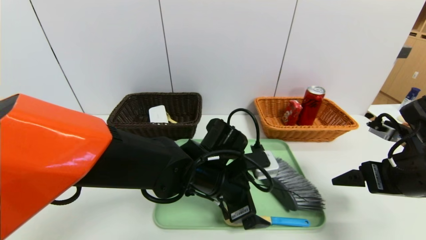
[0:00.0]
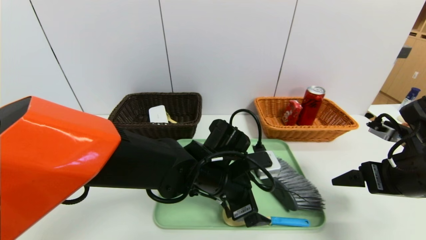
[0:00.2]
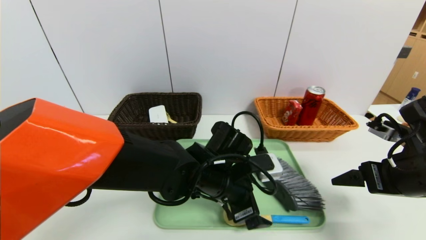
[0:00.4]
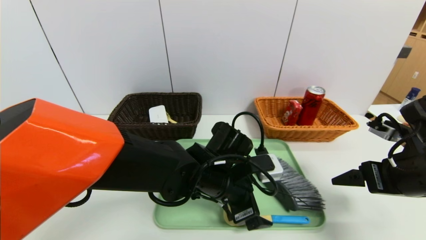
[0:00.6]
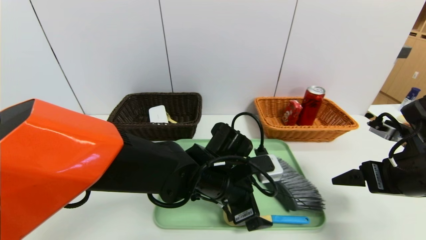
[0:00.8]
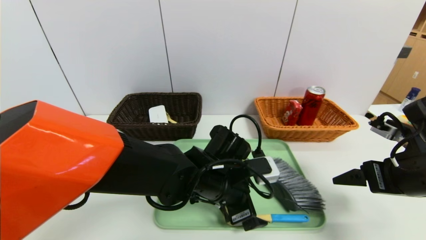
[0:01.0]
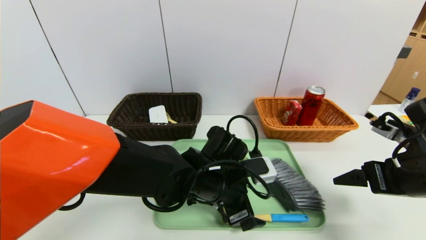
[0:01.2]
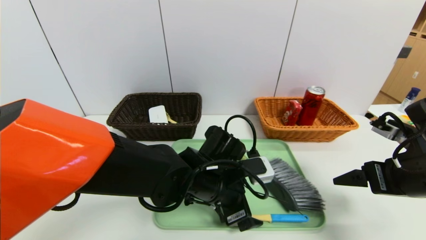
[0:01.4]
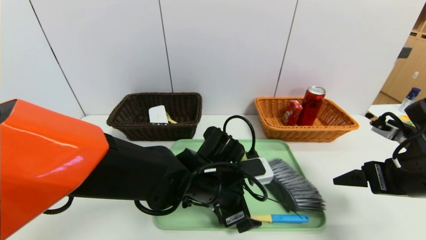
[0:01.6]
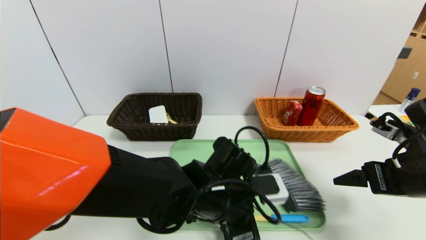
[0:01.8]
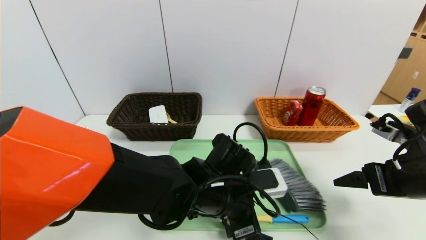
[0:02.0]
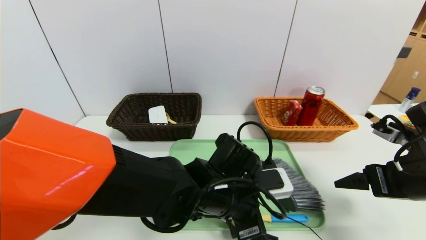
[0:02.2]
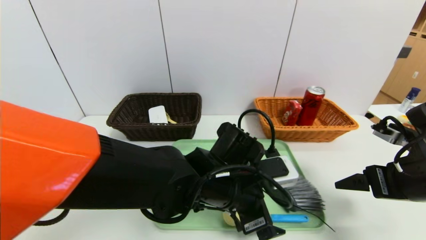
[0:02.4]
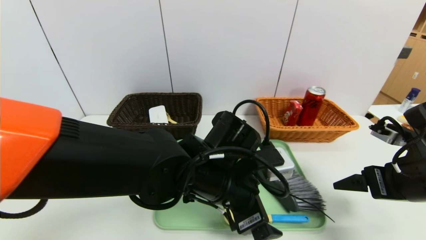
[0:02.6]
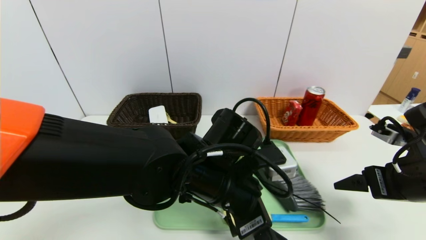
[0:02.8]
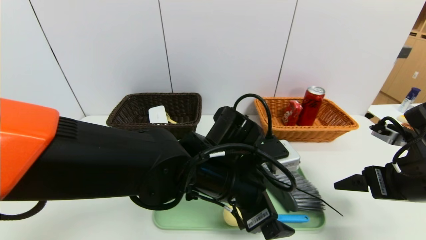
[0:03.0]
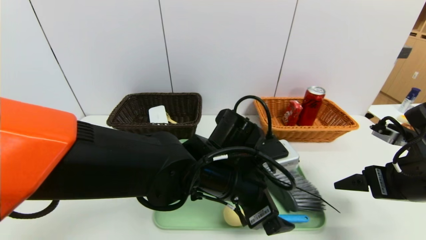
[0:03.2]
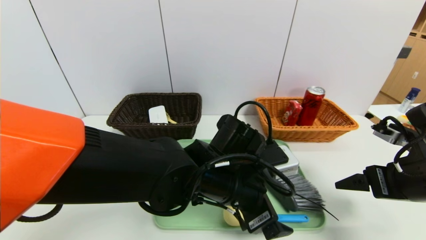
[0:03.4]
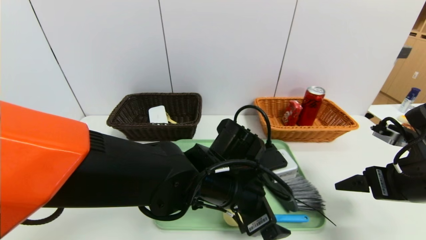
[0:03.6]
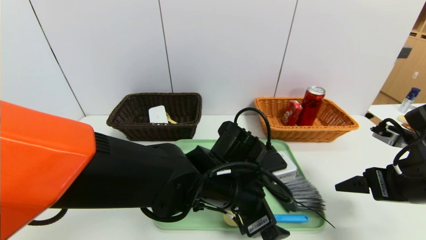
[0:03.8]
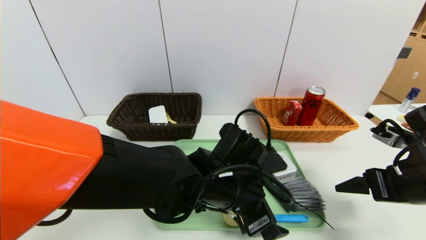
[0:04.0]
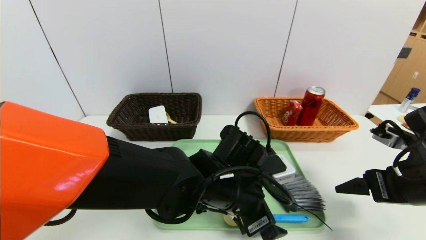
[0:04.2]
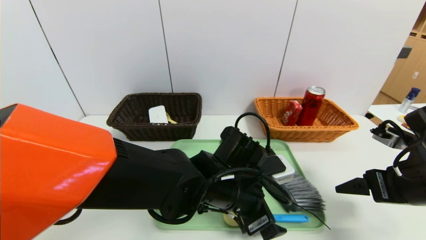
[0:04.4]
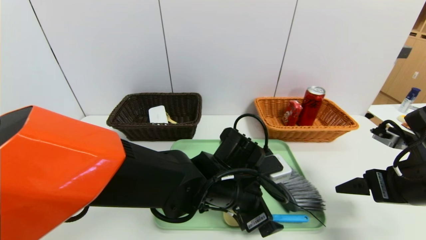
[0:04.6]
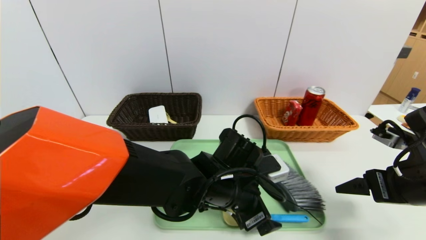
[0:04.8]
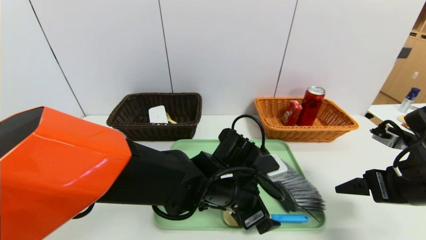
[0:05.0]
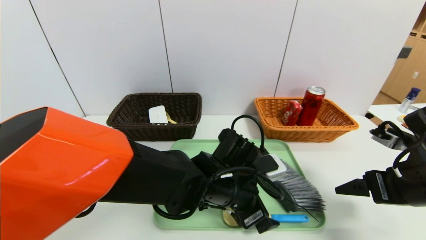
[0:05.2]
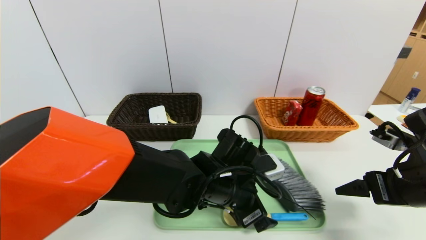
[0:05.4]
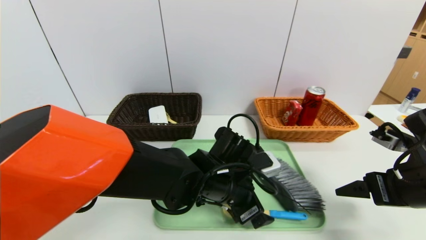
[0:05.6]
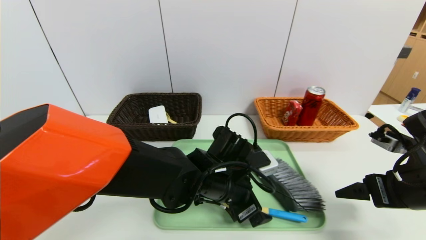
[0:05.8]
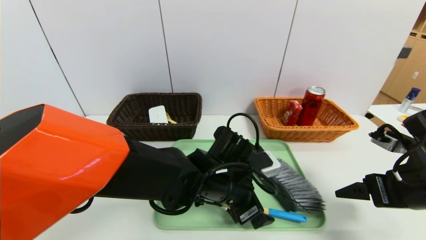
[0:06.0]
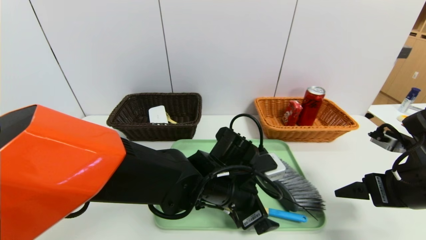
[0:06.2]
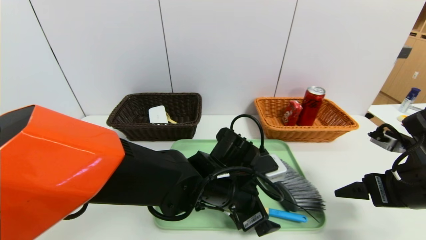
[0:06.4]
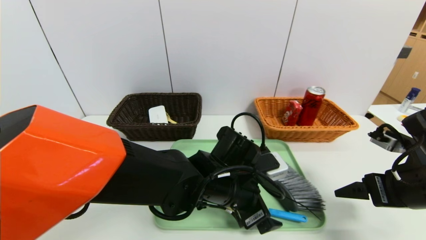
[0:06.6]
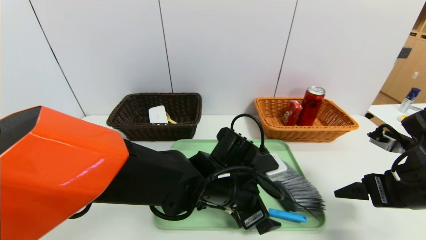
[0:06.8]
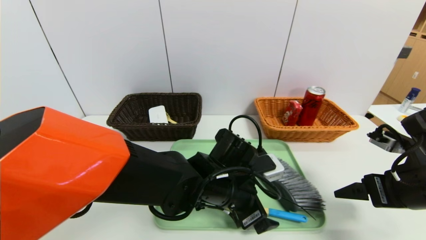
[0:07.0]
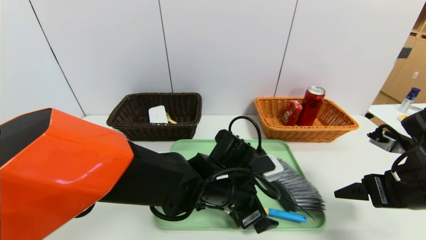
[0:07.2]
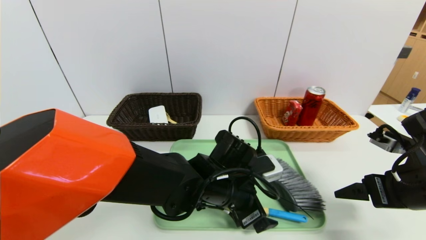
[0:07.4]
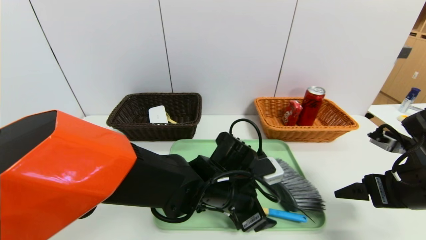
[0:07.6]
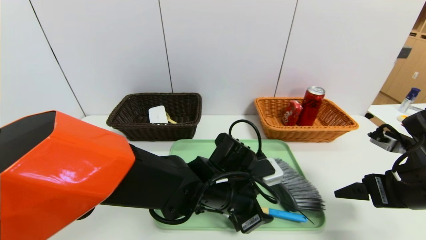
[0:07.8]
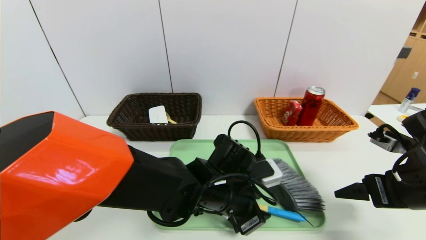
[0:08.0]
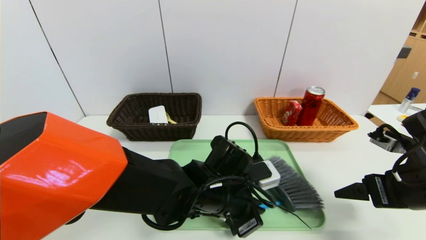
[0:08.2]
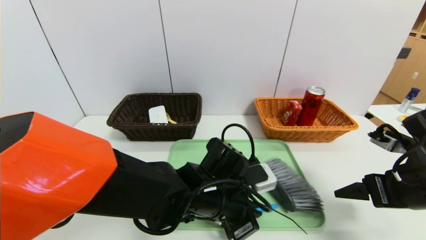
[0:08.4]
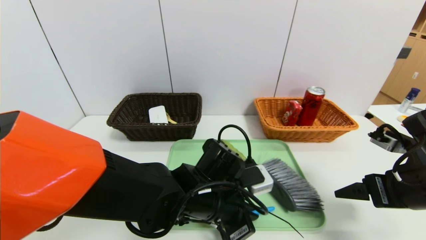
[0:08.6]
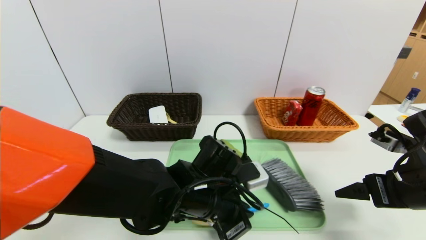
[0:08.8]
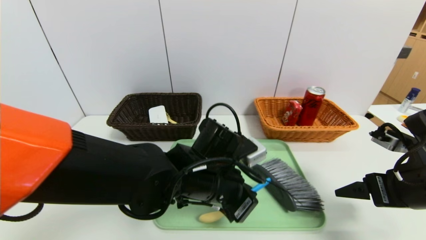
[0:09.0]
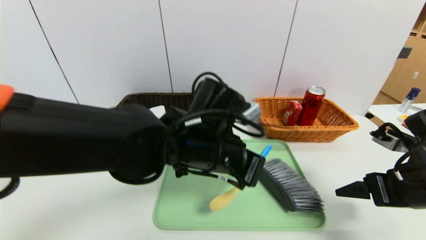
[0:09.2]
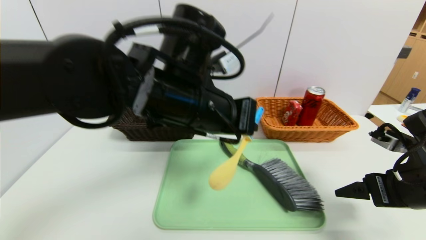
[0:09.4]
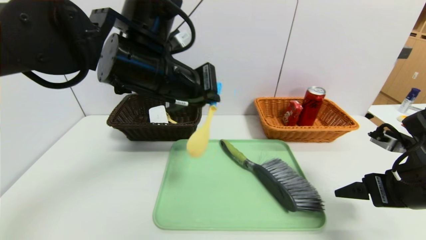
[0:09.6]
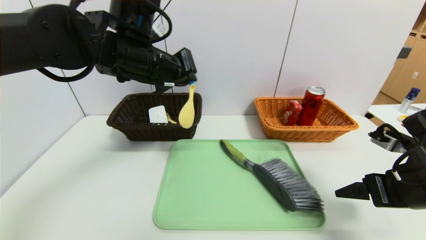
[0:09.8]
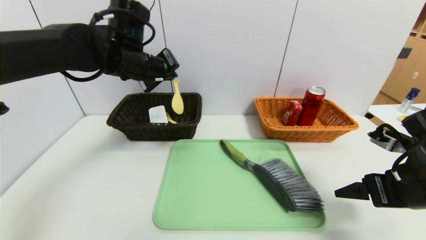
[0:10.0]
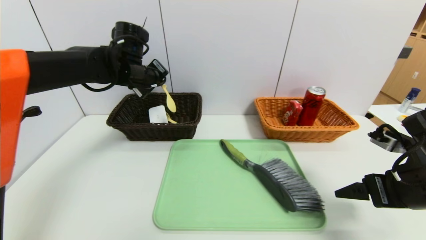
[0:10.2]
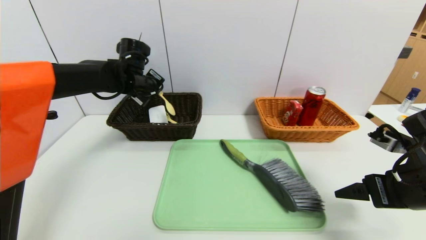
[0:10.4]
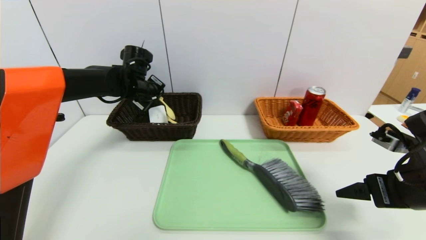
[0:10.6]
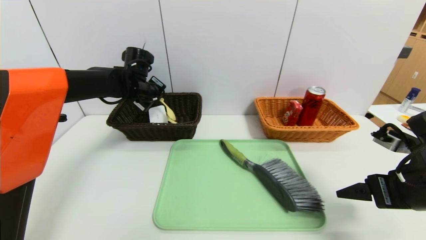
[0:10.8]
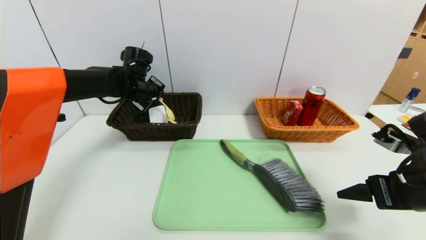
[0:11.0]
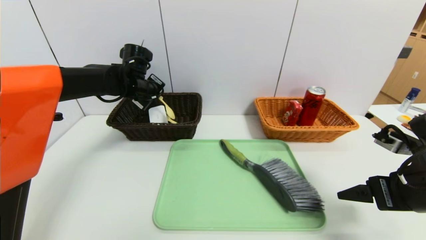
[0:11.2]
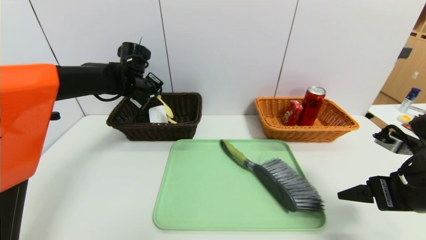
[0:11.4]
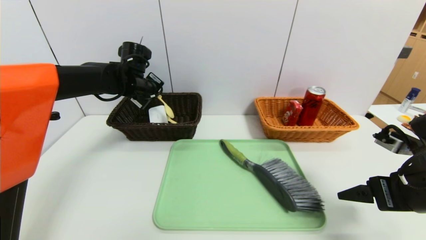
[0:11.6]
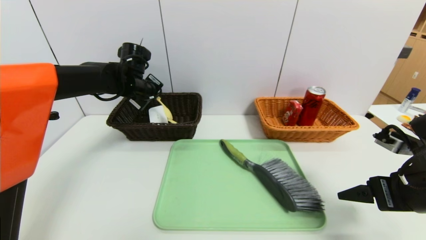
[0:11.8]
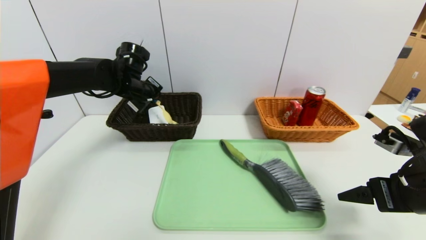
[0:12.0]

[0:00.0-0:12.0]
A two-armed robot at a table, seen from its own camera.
Task of the whole recording: place the food in the right basket with the right gripper, and place the non food items in the left basket with the left gripper.
0:00.0 to 0:01.6: There are only small adjustments of the grippers.
0:01.6 to 0:03.0: The left gripper heads upward, covering approximately 5 cm.
0:03.0 to 0:04.4: There are only small adjustments of the grippers.
0:04.4 to 0:06.0: The grippers move only a little.
0:06.0 to 0:07.6: Neither gripper changes place.
0:07.6 to 0:09.0: The left gripper moves about 5 cm, and closes up.
0:09.0 to 0:10.4: The left gripper travels forward and to the left by roughly 30 cm.
0:10.4 to 0:12.0: There are only small adjustments of the grippers.

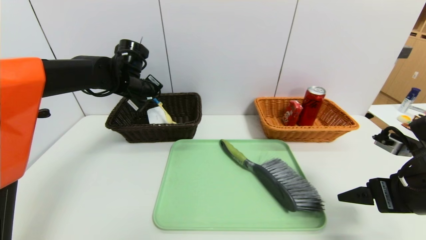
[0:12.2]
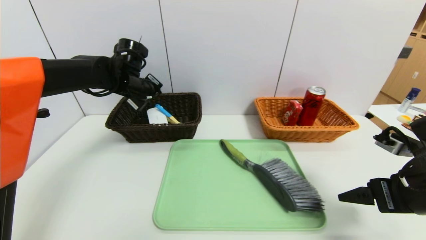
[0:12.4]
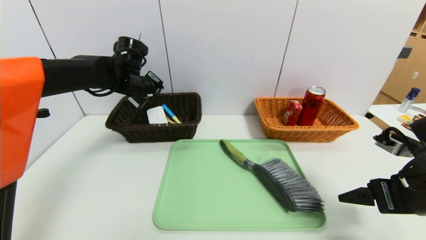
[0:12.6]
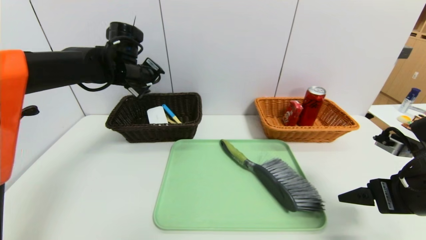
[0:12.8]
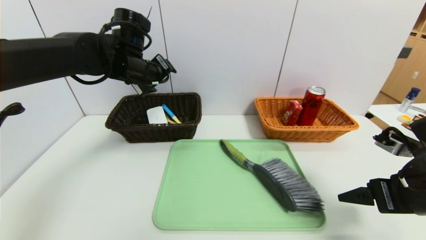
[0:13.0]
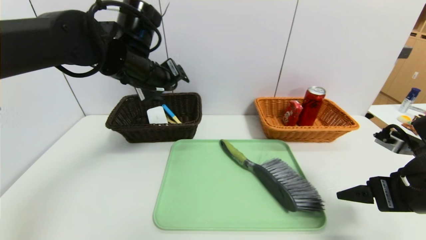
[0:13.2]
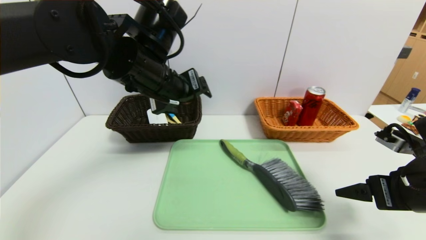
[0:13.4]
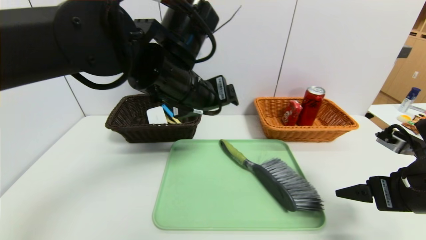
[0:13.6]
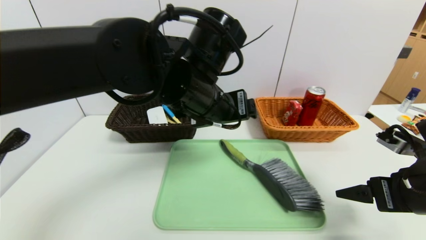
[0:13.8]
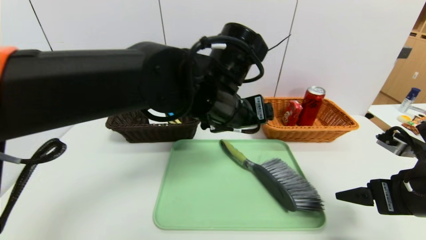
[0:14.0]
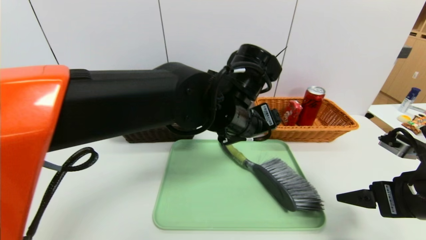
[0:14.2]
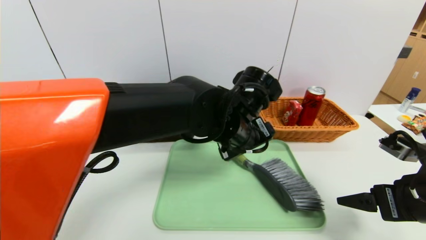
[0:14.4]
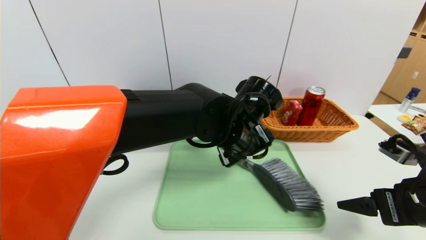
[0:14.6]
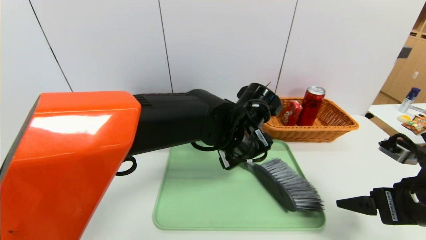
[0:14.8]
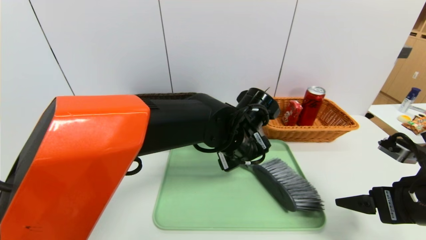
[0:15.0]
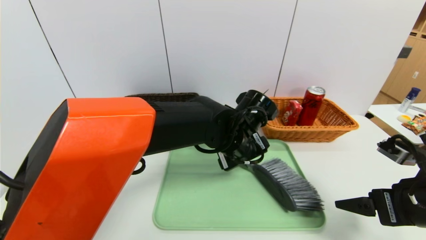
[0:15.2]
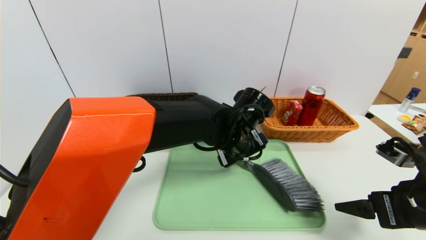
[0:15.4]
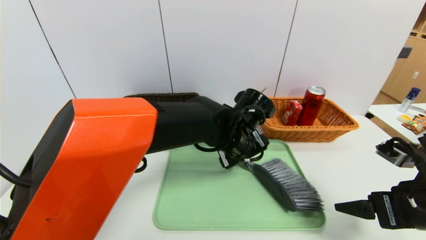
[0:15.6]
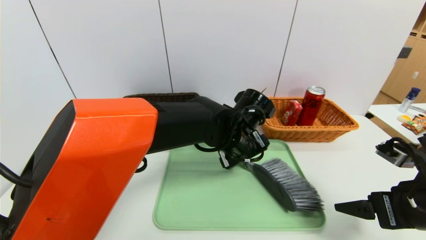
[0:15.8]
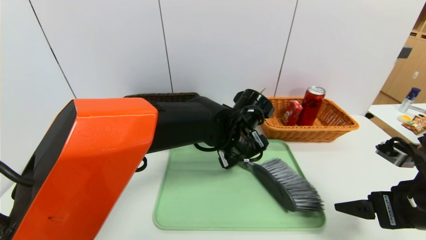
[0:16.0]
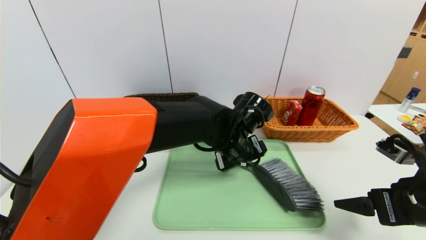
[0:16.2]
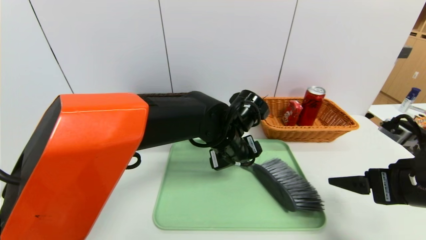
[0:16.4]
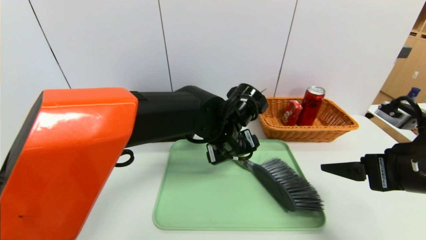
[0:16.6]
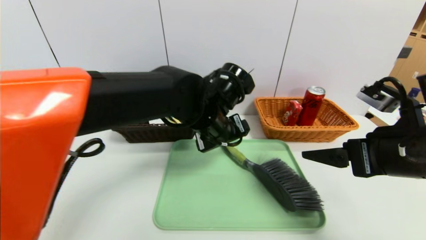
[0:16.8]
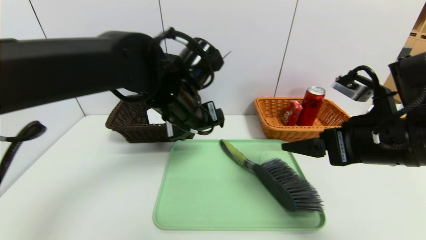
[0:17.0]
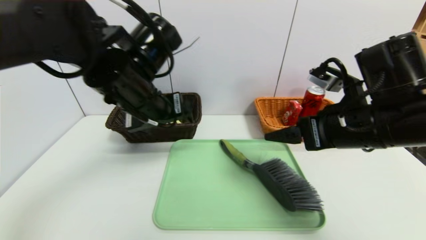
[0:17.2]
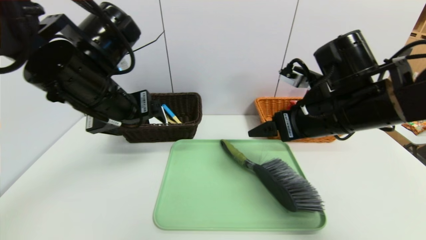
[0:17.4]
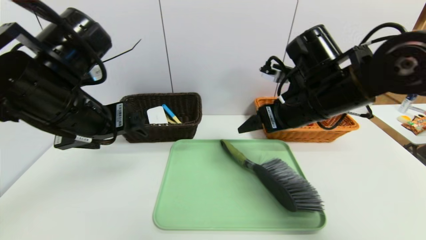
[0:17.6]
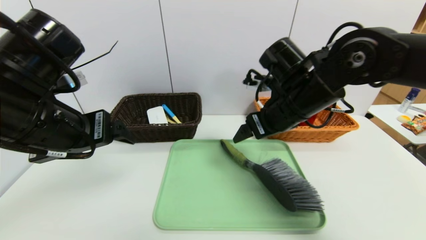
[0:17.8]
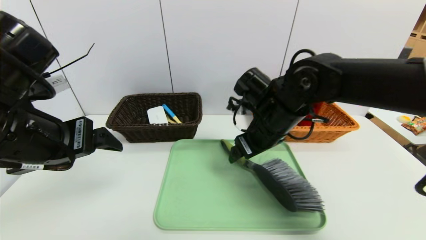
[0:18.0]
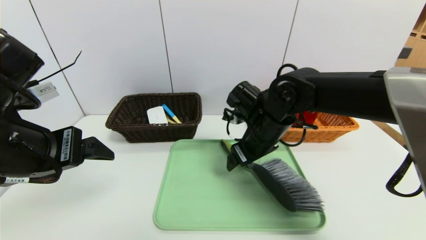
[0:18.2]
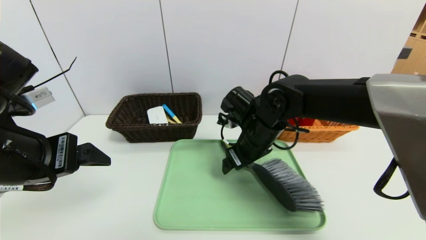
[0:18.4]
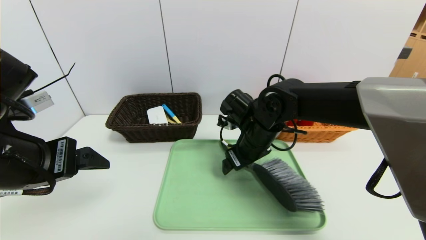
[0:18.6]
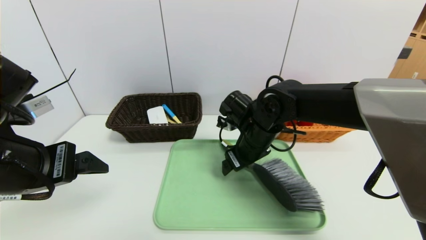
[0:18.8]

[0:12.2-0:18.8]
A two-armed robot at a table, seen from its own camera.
Task of the whole recording: place the food in the right basket with the right gripper, and place the non food items in the left basket with the left gripper.
0:12.2 to 0:13.8: The left gripper shifts about 25 cm to the right and backward, and opens its fingers.
0:13.8 to 0:15.4: The left gripper is displaced downward and to the right by roughly 15 cm.
0:15.4 to 0:17.2: The right gripper goes some 15 cm to the left, upward and forward. The left gripper goes approximately 20 cm to the left and upward.
0:17.2 to 0:18.8: The left gripper travels backward and to the left by roughly 15 cm. Meanwhile the right gripper shifts some 20 cm to the left, forward and downward.
